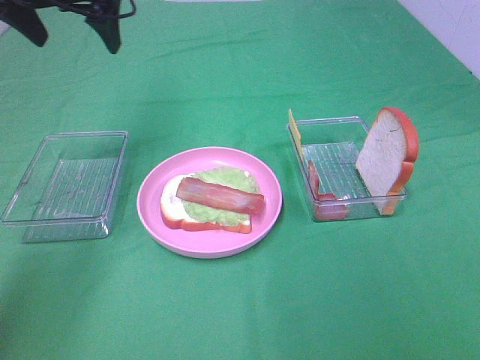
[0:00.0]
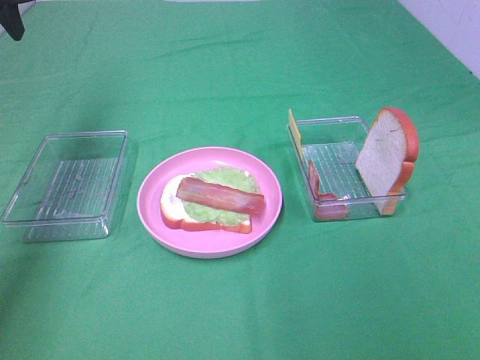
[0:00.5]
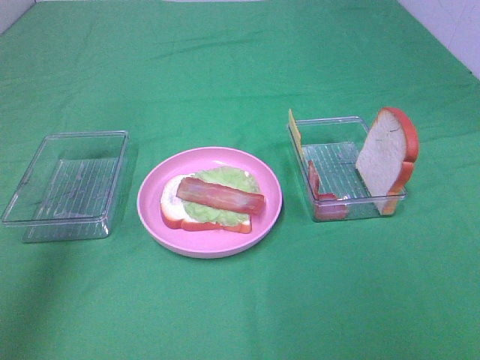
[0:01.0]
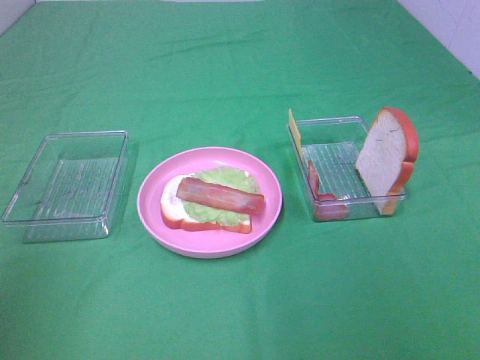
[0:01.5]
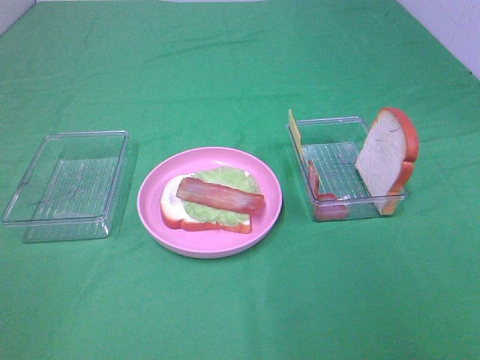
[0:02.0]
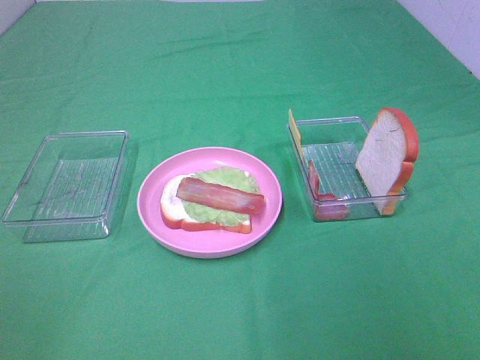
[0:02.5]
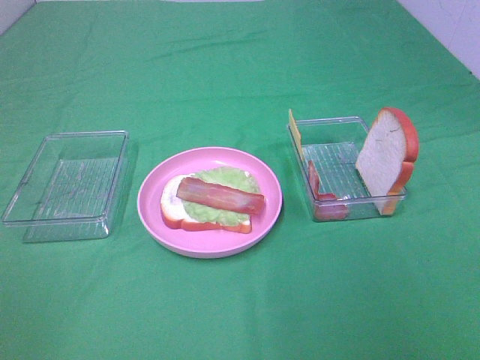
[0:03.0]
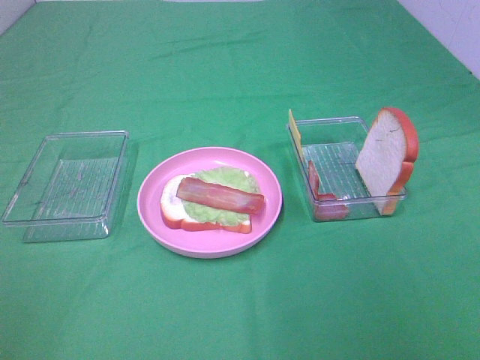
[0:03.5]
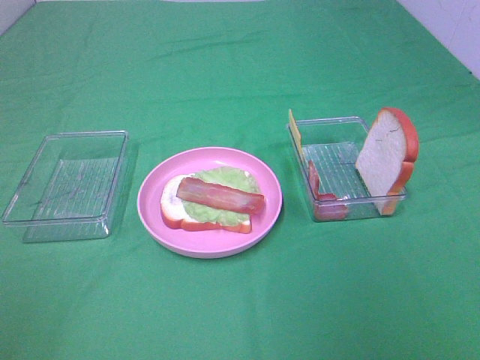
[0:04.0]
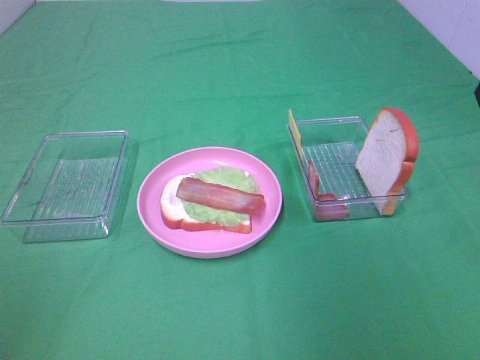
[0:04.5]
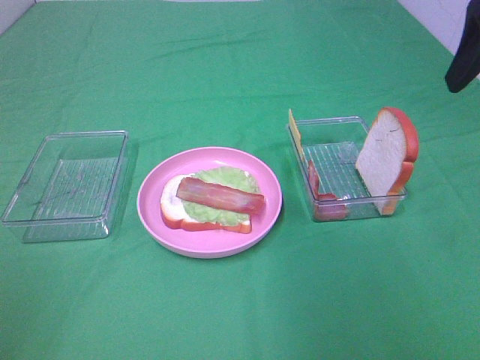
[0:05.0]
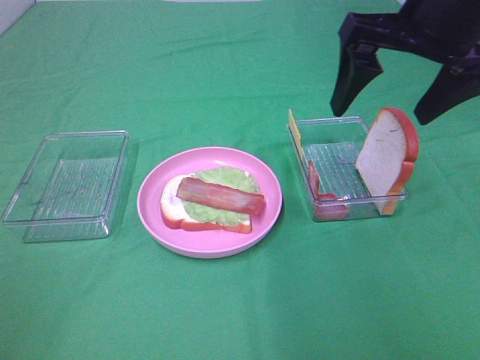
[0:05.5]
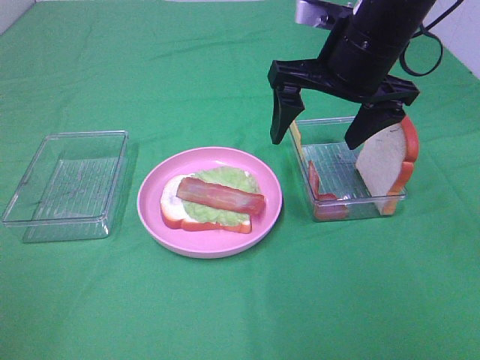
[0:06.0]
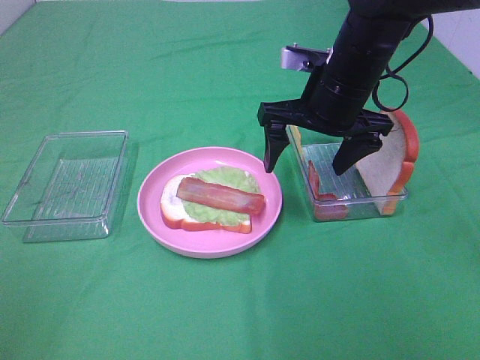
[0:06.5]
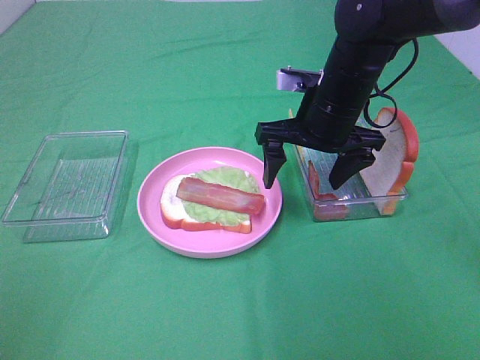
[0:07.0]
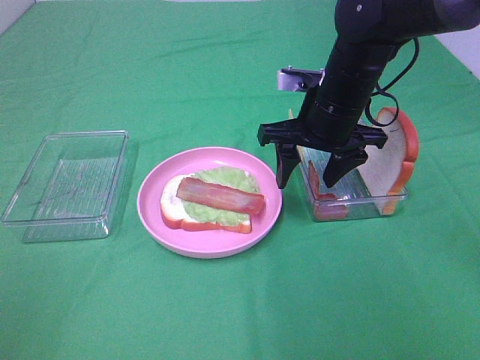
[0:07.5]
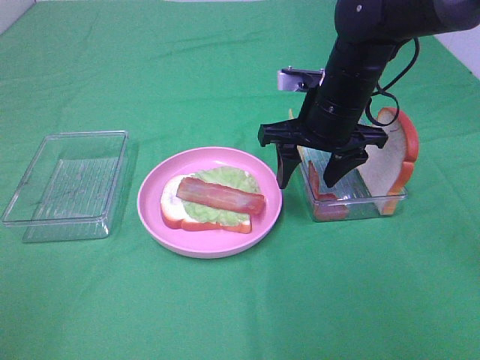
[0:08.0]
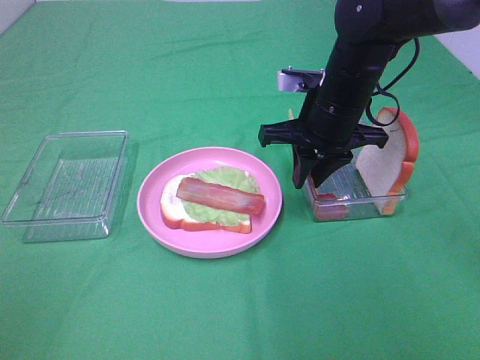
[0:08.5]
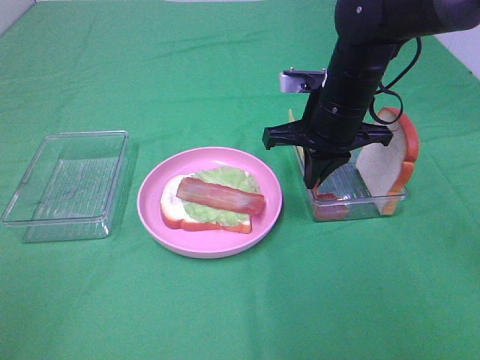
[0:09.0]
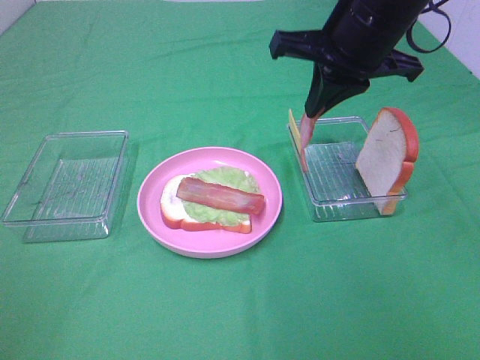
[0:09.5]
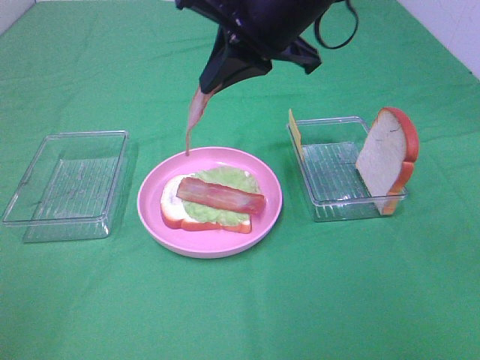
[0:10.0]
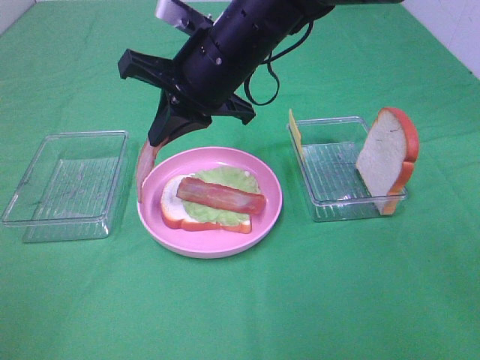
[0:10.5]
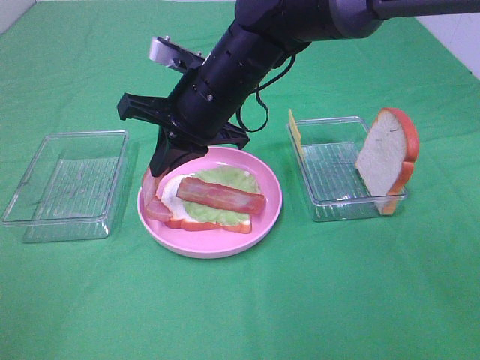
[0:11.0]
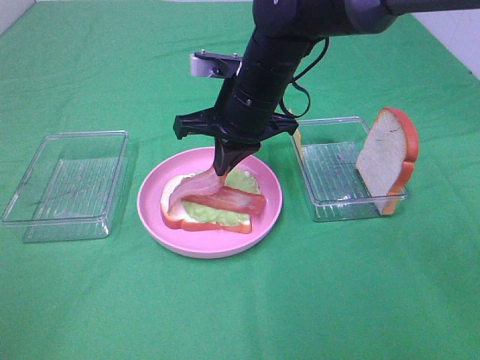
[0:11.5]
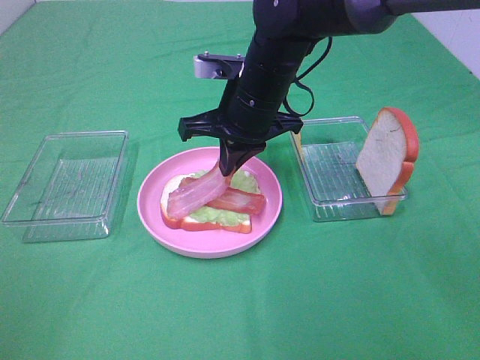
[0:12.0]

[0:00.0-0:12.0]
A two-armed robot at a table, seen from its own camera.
Task of the whole recording: Make sandwiches.
Step, 0:00.0 to 0:09.0: Right hand:grab the bacon.
0:00.0 to 0:02.0: The left gripper goes approximately 50 cm backward.
0:04.0 to 0:06.0: The right gripper is displaced forward and to the left by roughly 30 cm.
0:06.0 to 0:08.0: The right gripper heads downward, covering about 10 cm.
0:08.0 to 0:10.0: The right gripper goes about 15 cm upward and to the left, and closes.
0:10.0 to 0:12.0: The right gripper goes roughly 10 cm downward.

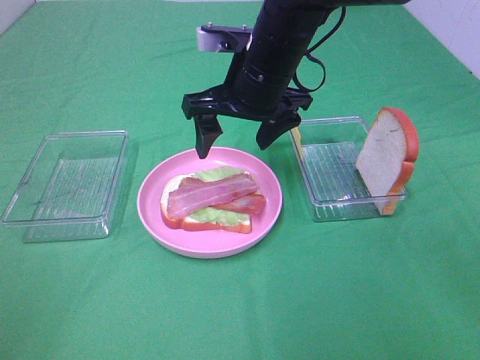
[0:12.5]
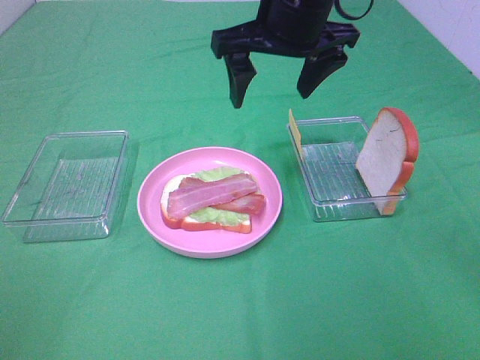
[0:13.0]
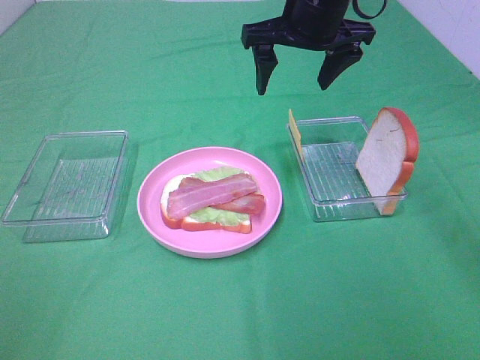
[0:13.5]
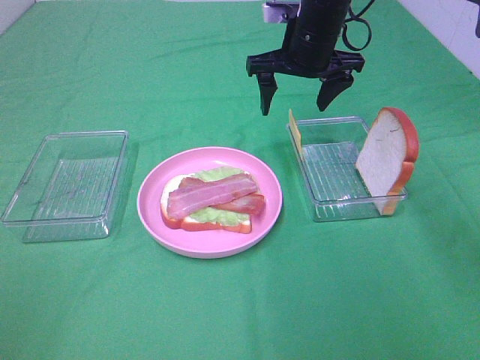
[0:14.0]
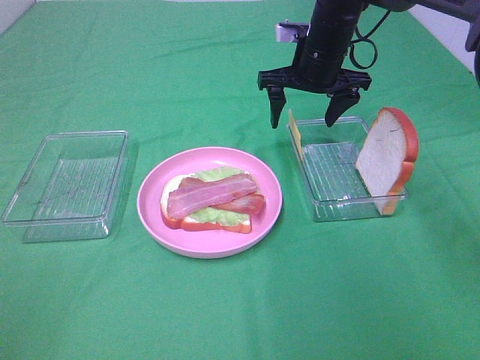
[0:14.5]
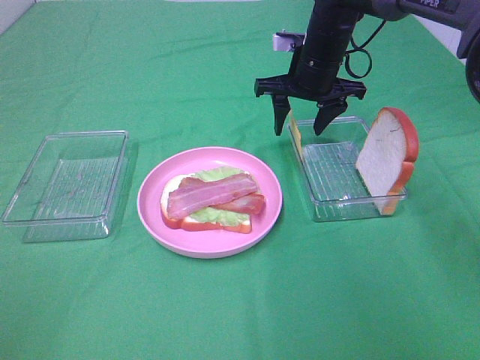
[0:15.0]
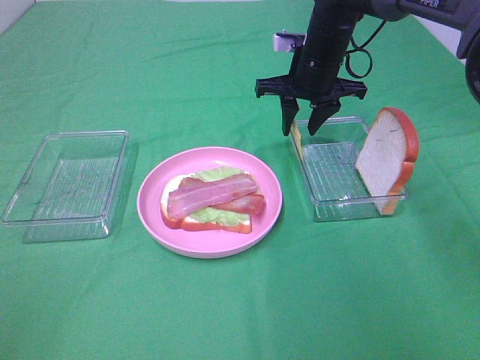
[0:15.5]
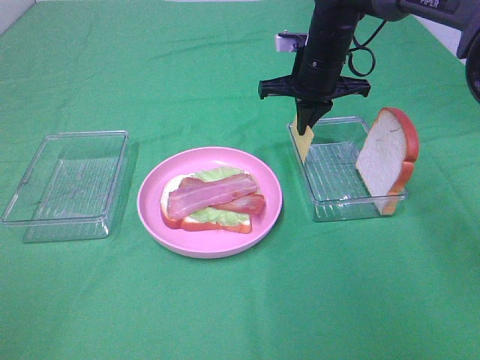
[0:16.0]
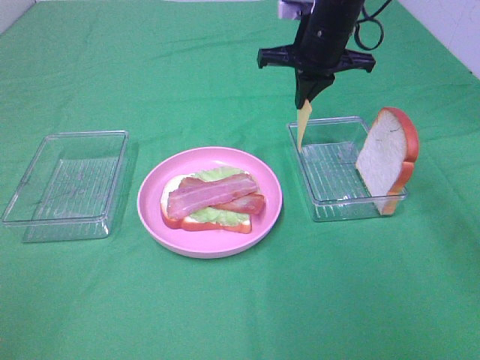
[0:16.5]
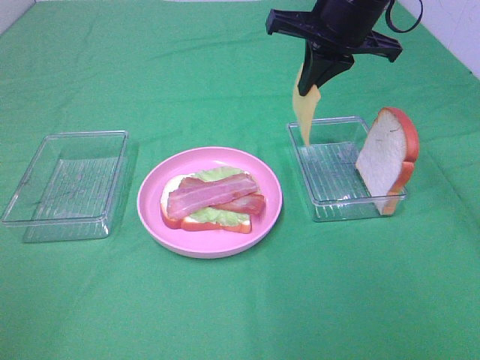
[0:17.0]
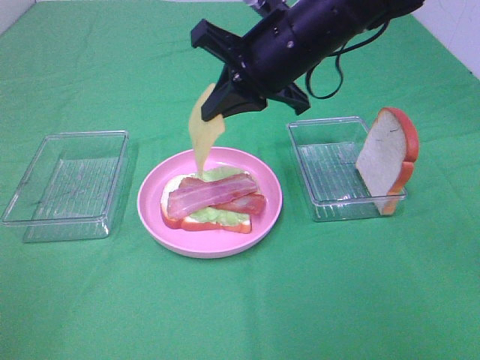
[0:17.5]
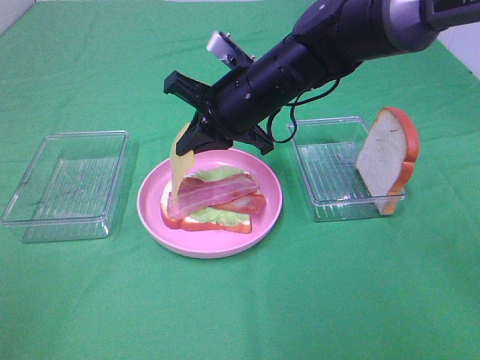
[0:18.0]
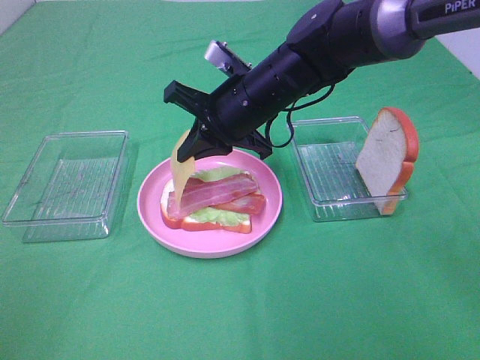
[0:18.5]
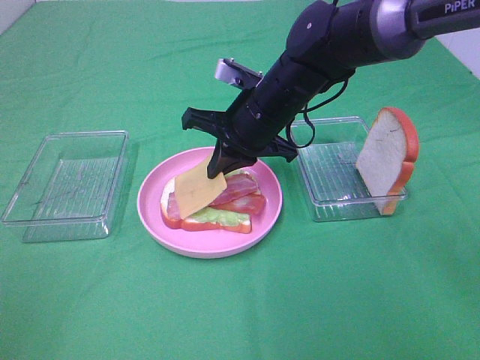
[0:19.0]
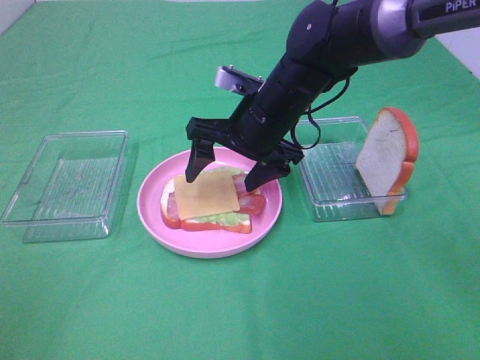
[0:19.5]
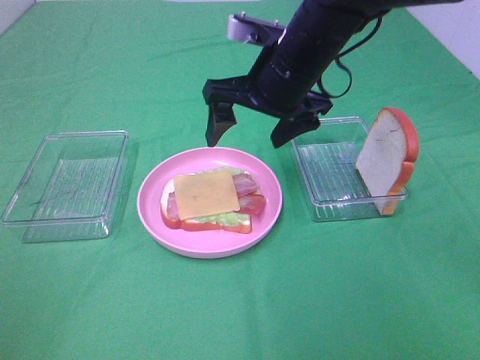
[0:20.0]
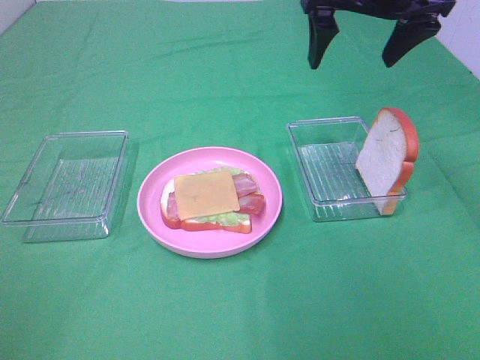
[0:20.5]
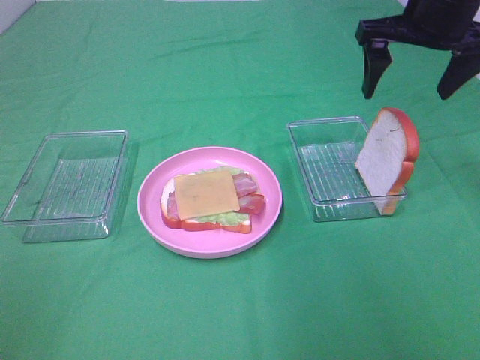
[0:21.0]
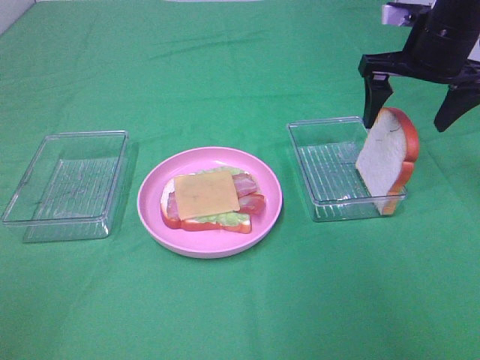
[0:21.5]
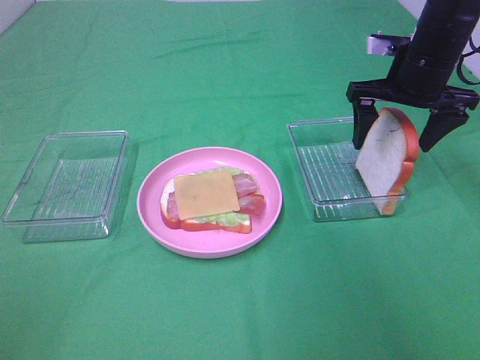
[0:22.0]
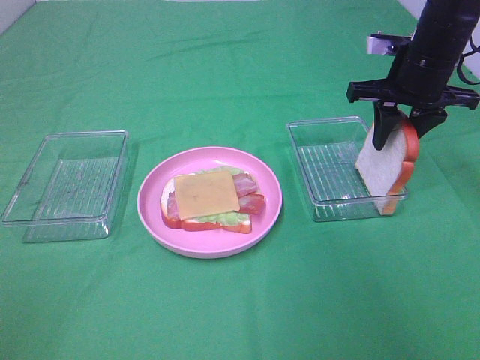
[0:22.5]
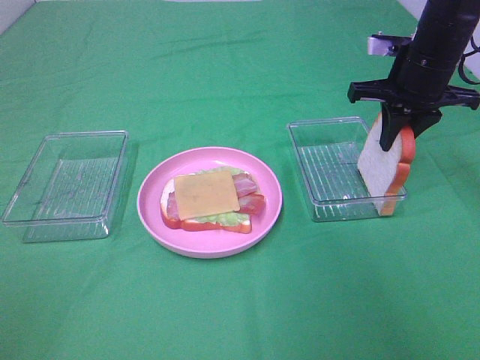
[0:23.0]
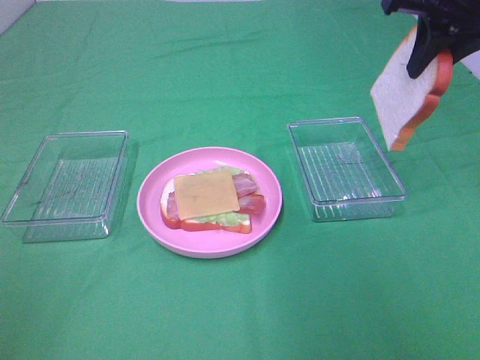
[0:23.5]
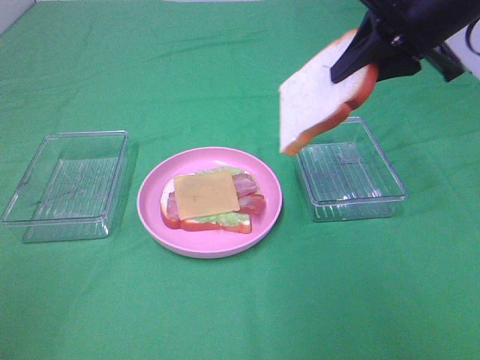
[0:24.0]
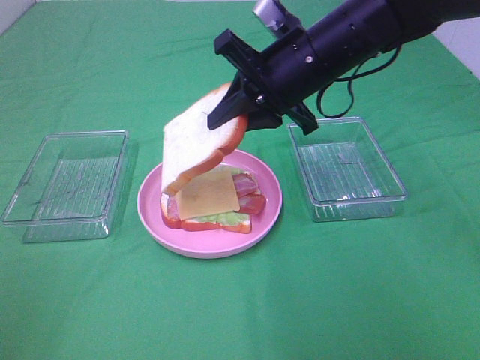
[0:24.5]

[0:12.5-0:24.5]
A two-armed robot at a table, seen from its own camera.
Task of the whole recording: Make sandwiches.
Step, 0:12.5 to 0:16.0: Right hand:grab the cheese slice.
Step, 0:16.5 to 0:19.5: Right hand:place the cheese slice on top of the bacon.
Step, 0:20.0 to 0:22.5: Right hand:grab the bread slice.
0:12.5 to 0:14.5: The right gripper shifts roughly 15 cm forward and to the right.
0:14.5 to 0:16.5: The right gripper closes up.
0:16.5 to 0:18.5: The right gripper shifts approximately 15 cm backward, to the left and downward.
0:18.5 to 0:20.5: The right gripper travels upward and to the right by approximately 20 cm, and opens up.
0:20.5 to 0:22.5: The right gripper goes roughly 15 cm downward and to the right, and closes.
0:22.5 to 0:24.5: The right gripper travels to the left by some 15 cm.

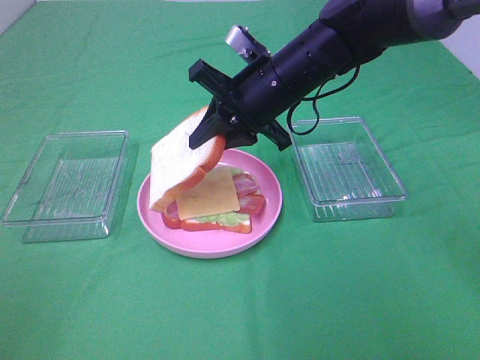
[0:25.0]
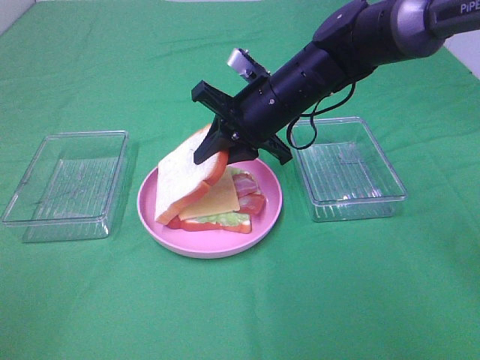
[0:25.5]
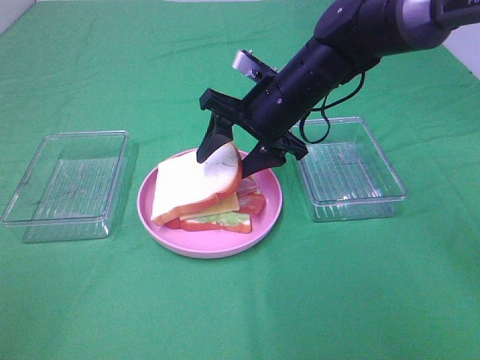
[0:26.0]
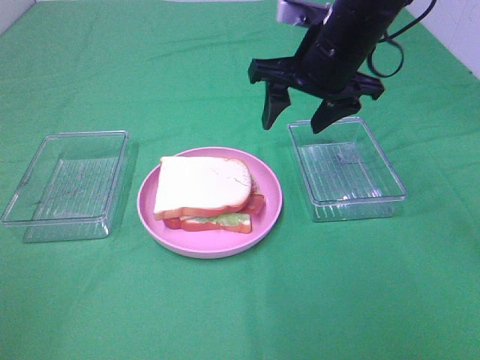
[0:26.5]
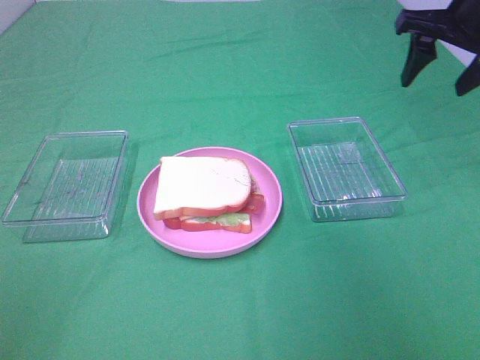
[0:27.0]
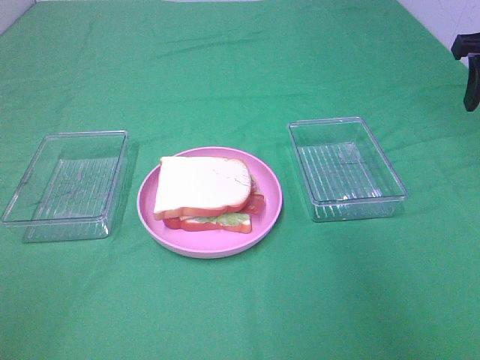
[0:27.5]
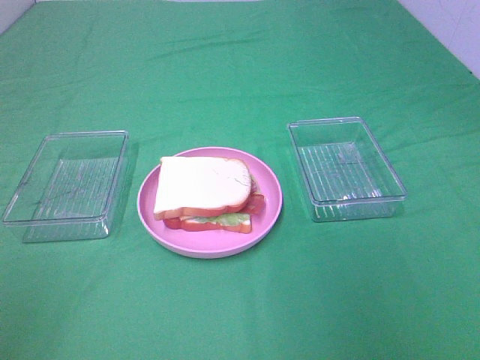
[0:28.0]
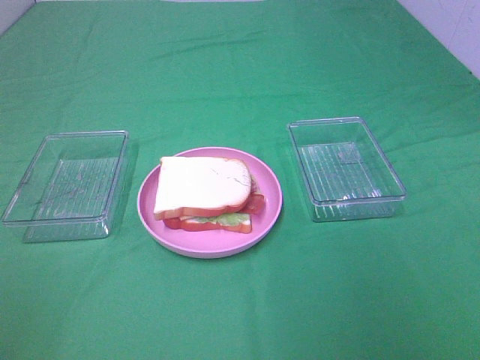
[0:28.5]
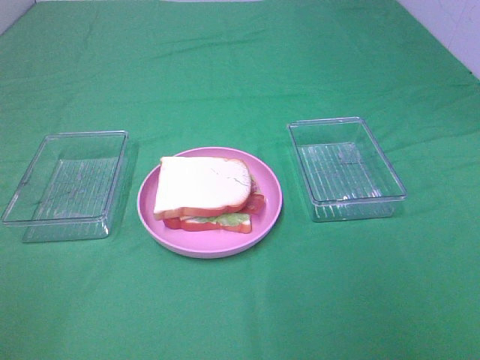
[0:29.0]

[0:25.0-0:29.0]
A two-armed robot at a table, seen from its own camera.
Task of the whole recording: Make sandwiches.
0:25.0 to 0:27.0: The right gripper heads to the right and upward, covering about 25 cm, and opens its fingers.
0:27.0 to 0:29.0: The right gripper goes roughly 40 cm backward.
